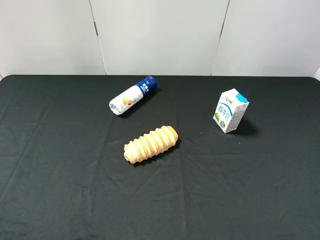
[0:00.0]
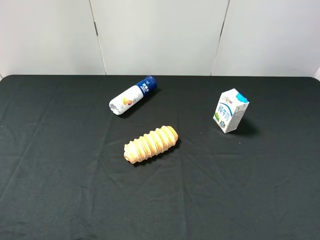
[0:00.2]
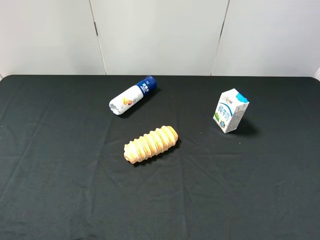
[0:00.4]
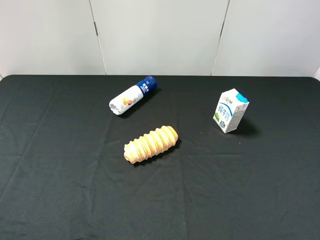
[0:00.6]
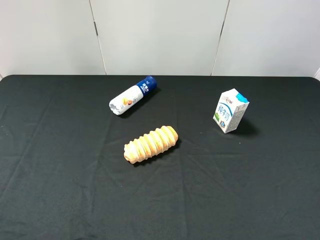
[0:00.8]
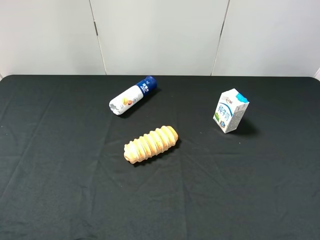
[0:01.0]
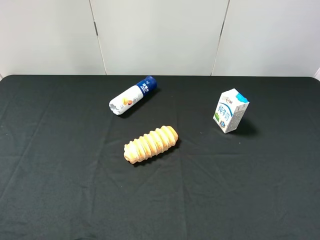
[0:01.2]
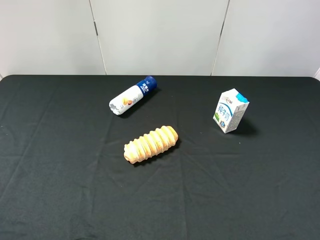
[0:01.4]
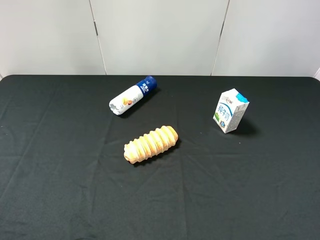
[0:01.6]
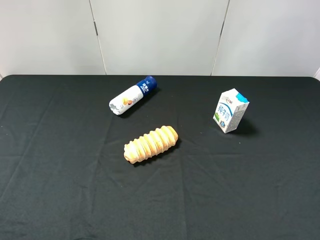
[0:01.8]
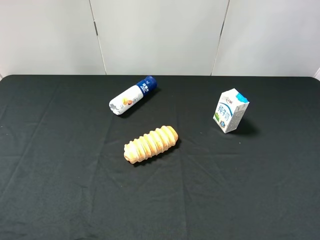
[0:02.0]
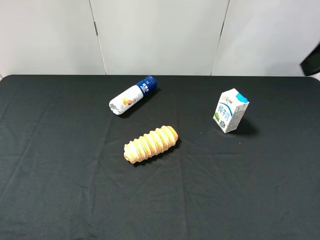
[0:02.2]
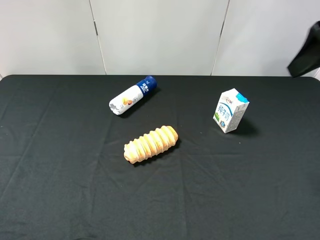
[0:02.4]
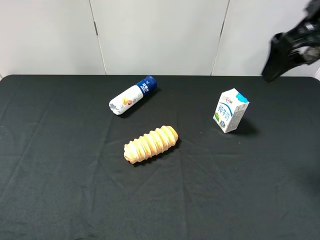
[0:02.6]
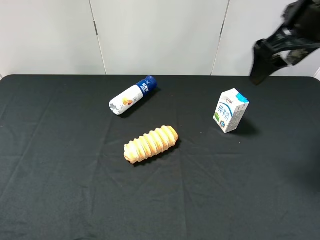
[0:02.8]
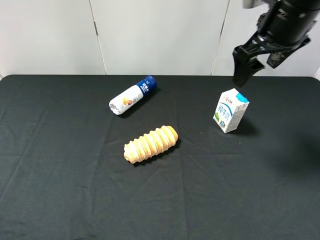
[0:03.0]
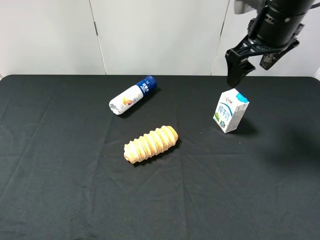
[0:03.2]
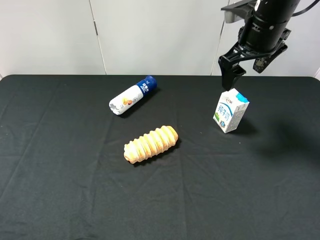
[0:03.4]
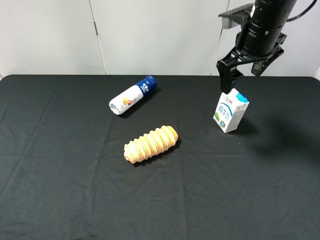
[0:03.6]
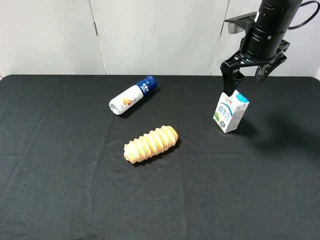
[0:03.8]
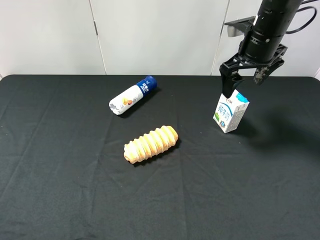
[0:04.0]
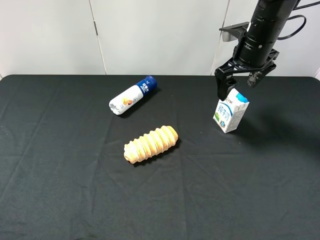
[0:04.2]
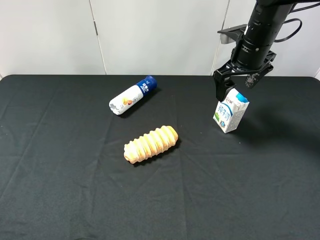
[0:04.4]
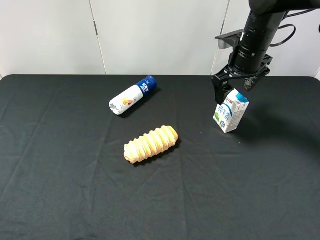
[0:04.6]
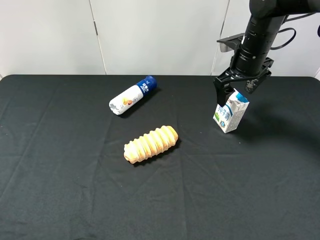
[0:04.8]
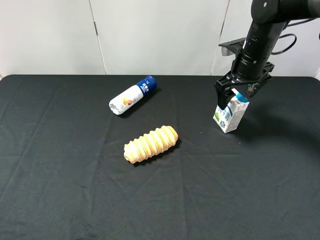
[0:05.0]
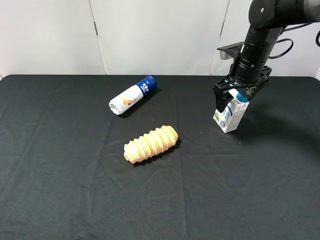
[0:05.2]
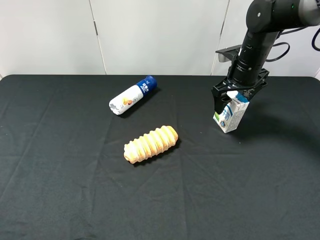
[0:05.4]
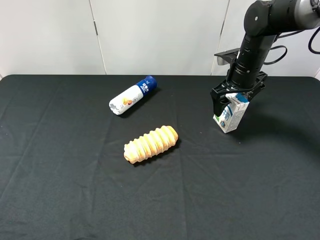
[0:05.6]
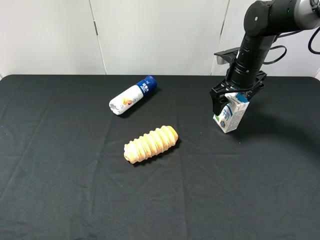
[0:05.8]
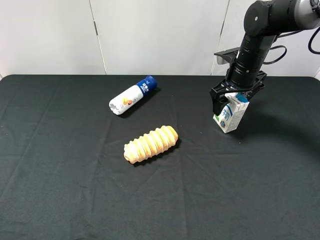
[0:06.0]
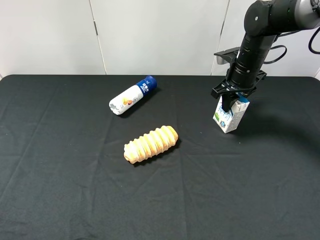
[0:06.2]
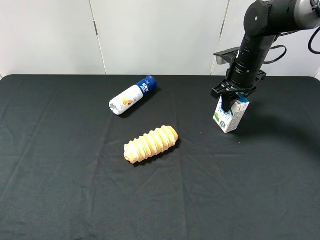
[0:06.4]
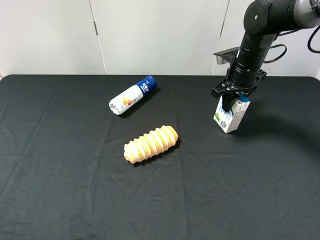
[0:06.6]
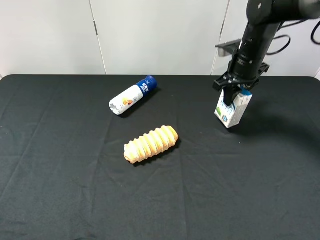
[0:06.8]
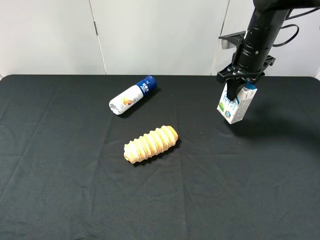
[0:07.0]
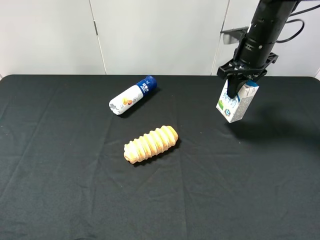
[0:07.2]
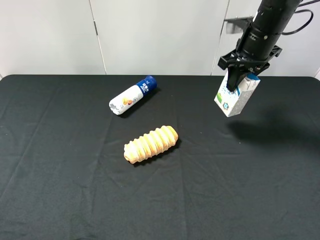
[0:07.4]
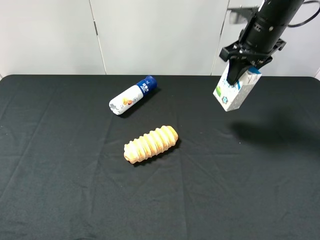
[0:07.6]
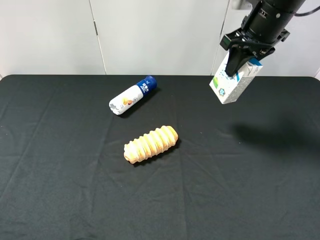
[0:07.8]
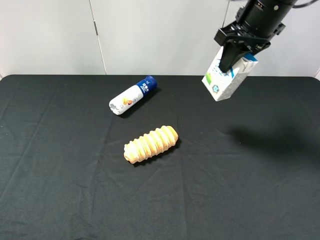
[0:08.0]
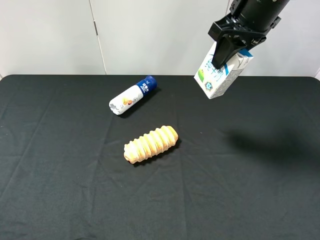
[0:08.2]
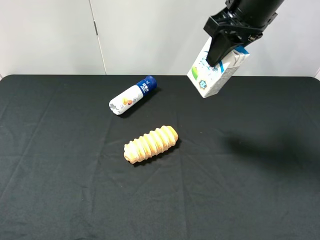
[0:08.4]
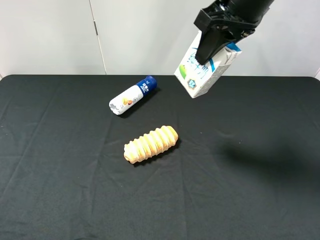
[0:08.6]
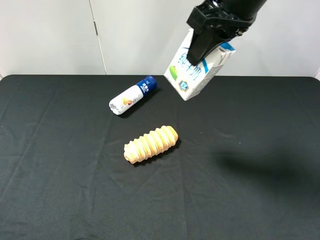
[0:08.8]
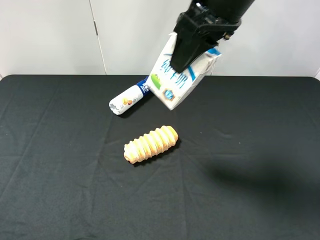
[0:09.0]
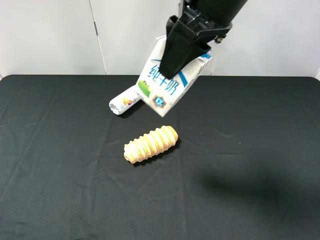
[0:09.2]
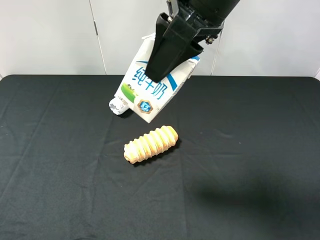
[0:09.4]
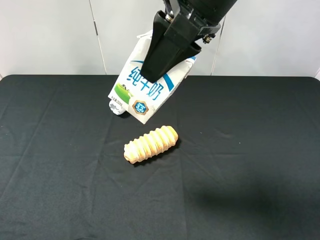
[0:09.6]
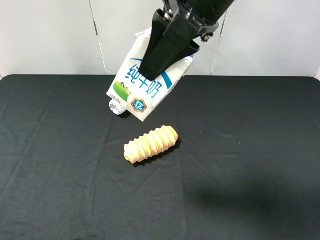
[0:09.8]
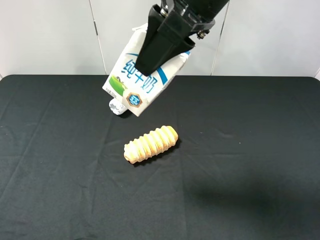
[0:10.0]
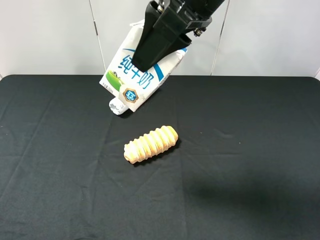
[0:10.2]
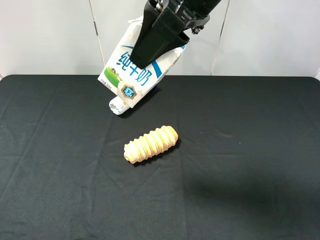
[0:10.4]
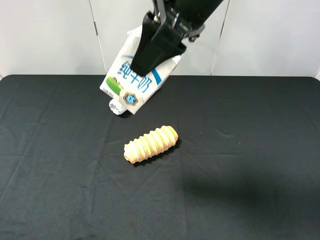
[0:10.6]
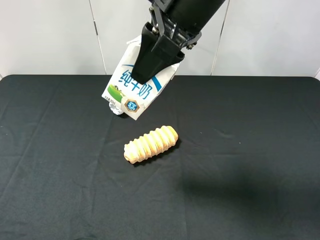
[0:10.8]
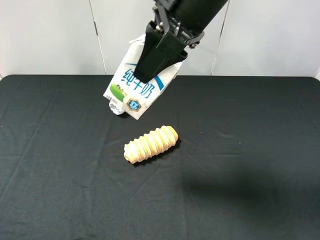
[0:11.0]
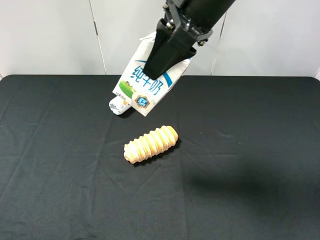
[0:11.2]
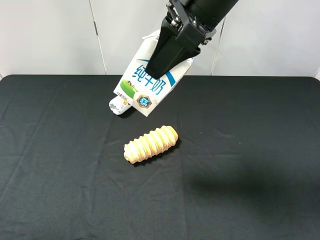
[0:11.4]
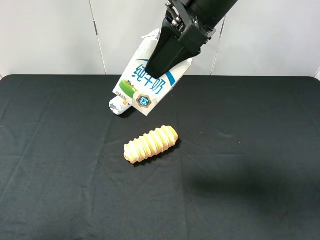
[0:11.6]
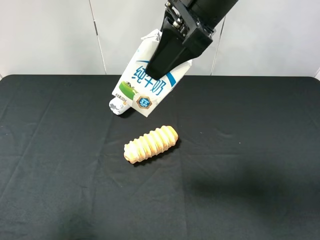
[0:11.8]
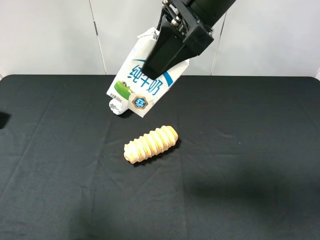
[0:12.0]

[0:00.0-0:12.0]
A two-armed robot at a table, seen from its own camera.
Task of the whole recording: use the right gripper to pick up the item and transfer it from the right gripper to the left gripper.
Step, 0:00.0 to 0:06.2: Use the right gripper to grab the milk on the right side of the table.
0:01.6 to 0:03.0: The right gripper is displaced forward by about 25 cm.
0:03.0 to 0:04.4: The right gripper shifts some 10 cm downward and forward.
0:04.4 to 0:06.0: The right gripper heads downward, covering roughly 5 cm.
0:06.0 to 0:07.6: The right gripper moves upward, approximately 10 cm, and closes its fingers.
0:07.6 to 0:09.0: The right gripper travels backward, to the left and upward by some 20 cm.
0:09.0 to 0:10.4: There are only small adjustments of the grippers.
0:10.4 to 0:12.0: The left gripper is displaced forward and upward by about 15 cm.

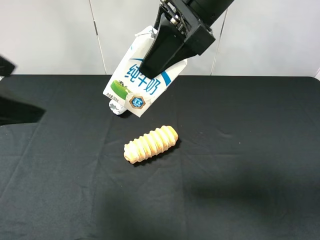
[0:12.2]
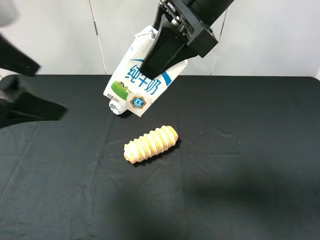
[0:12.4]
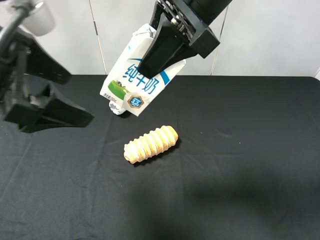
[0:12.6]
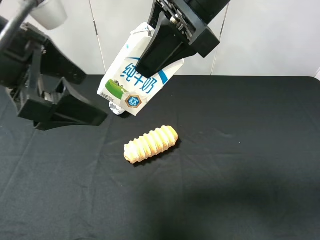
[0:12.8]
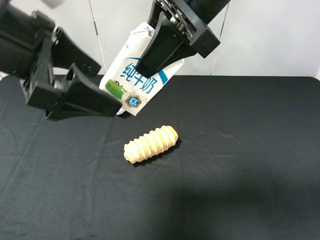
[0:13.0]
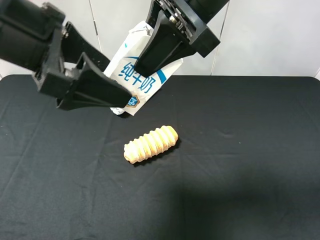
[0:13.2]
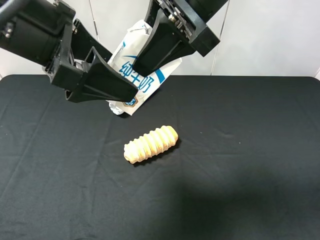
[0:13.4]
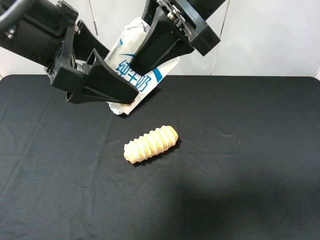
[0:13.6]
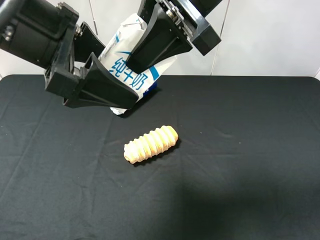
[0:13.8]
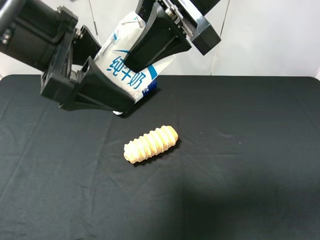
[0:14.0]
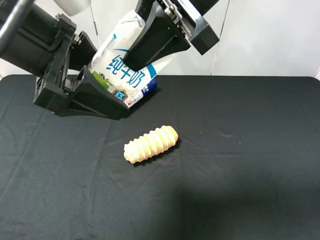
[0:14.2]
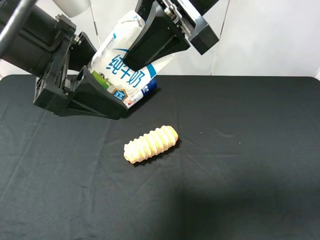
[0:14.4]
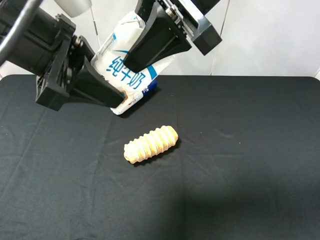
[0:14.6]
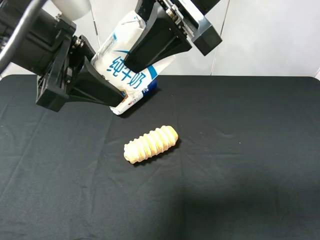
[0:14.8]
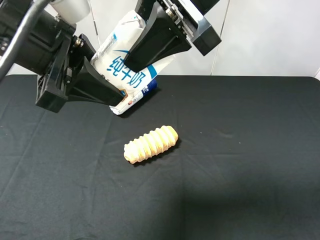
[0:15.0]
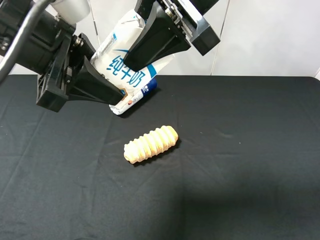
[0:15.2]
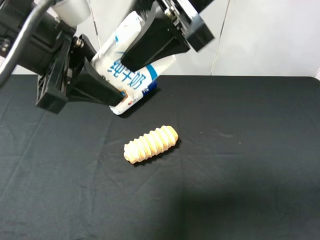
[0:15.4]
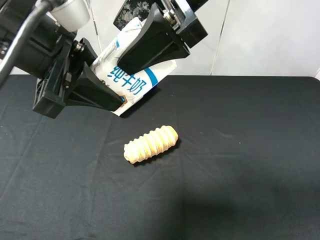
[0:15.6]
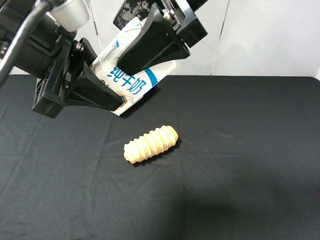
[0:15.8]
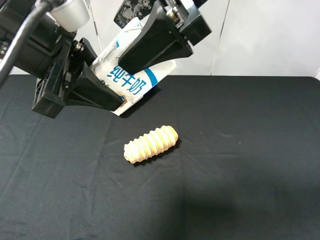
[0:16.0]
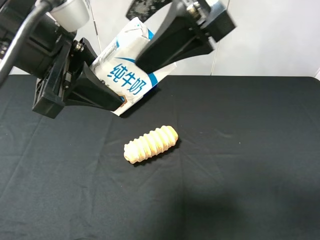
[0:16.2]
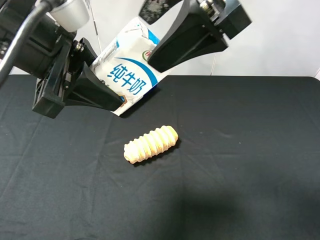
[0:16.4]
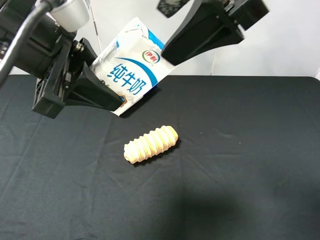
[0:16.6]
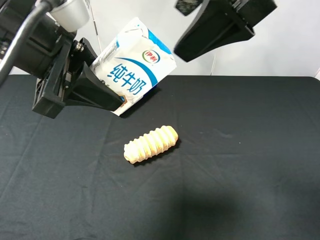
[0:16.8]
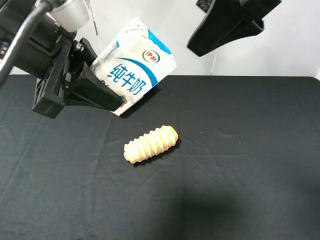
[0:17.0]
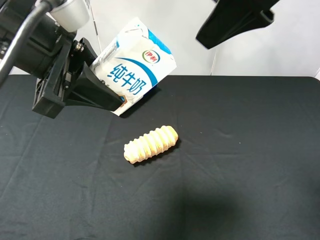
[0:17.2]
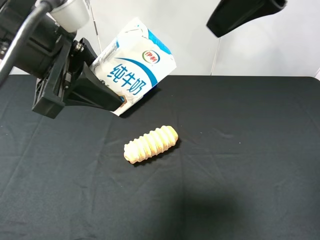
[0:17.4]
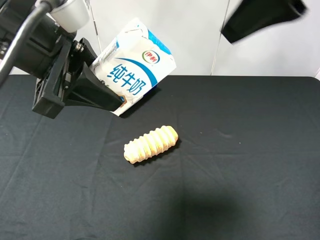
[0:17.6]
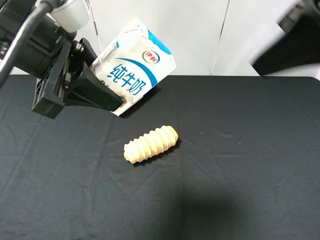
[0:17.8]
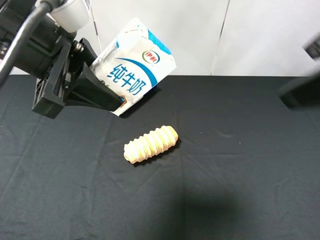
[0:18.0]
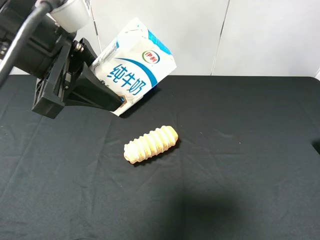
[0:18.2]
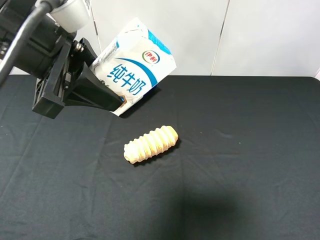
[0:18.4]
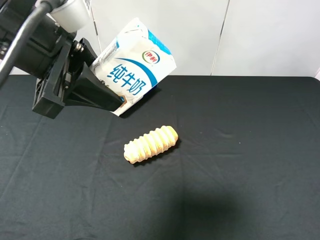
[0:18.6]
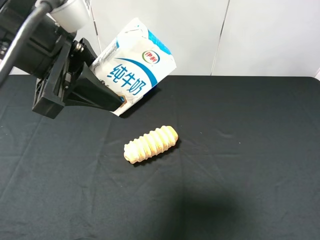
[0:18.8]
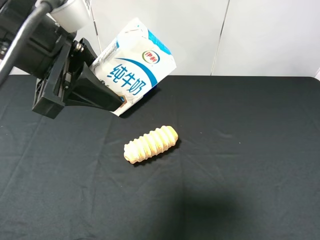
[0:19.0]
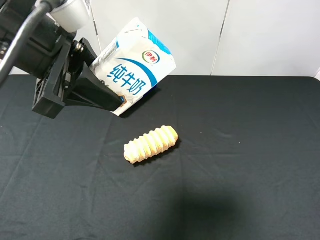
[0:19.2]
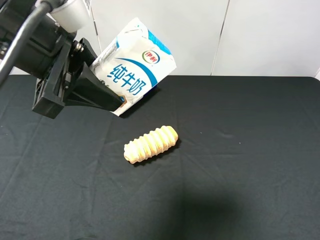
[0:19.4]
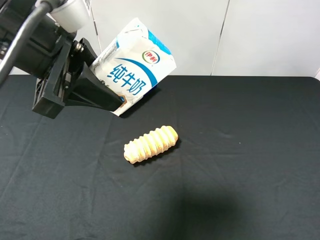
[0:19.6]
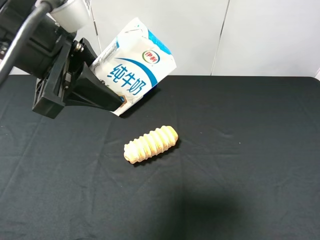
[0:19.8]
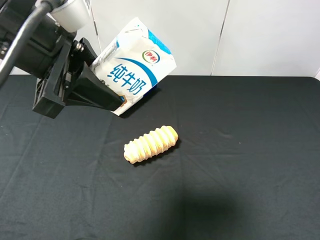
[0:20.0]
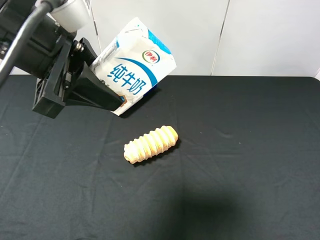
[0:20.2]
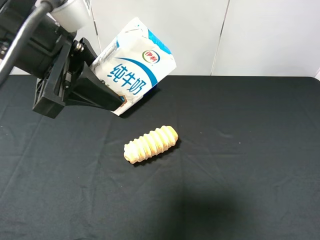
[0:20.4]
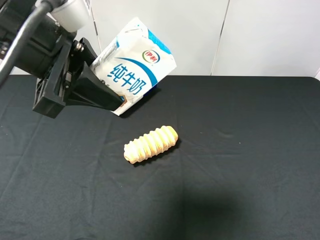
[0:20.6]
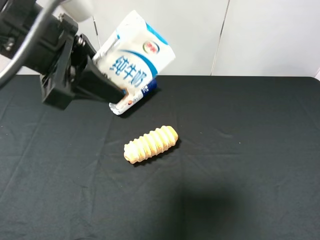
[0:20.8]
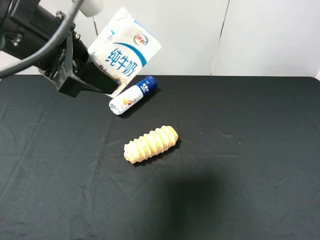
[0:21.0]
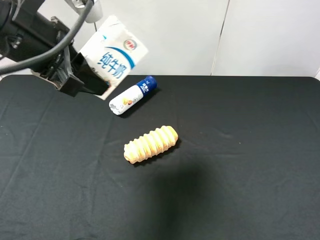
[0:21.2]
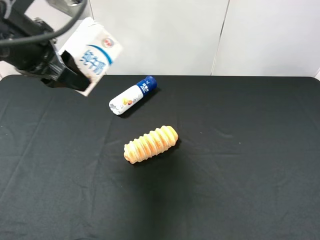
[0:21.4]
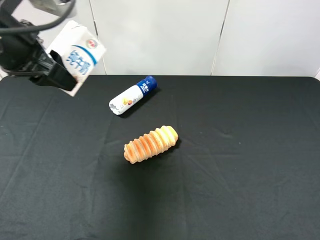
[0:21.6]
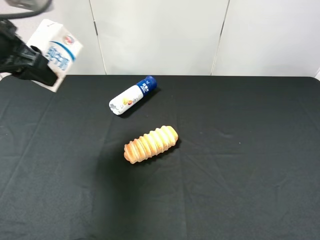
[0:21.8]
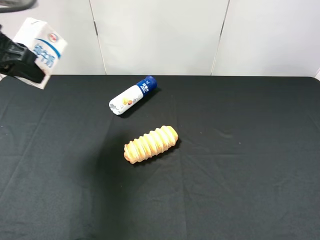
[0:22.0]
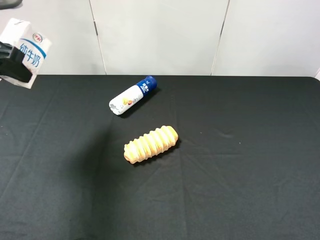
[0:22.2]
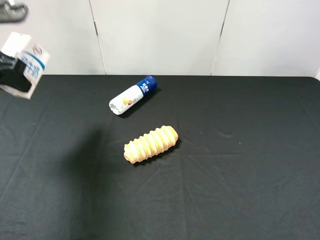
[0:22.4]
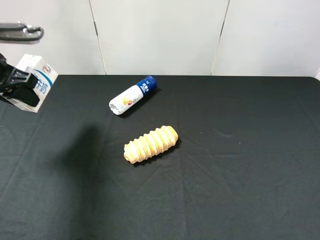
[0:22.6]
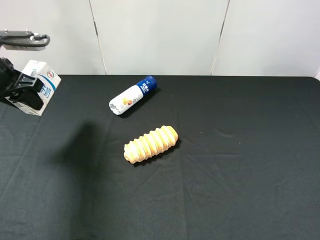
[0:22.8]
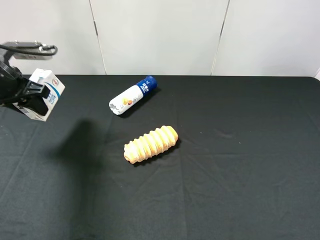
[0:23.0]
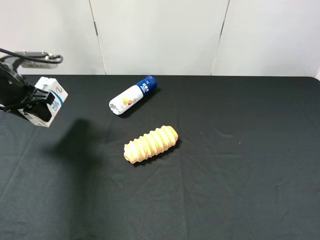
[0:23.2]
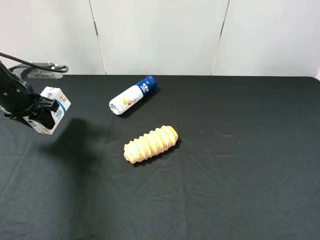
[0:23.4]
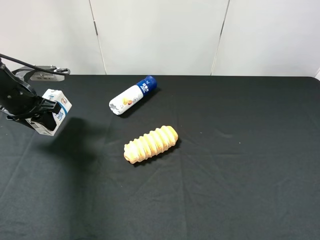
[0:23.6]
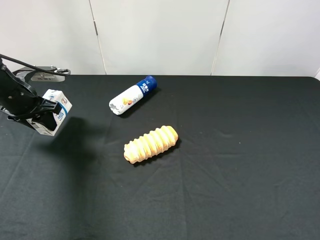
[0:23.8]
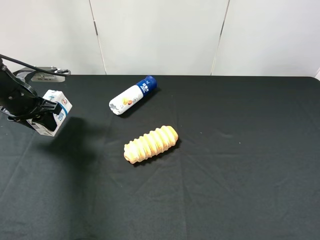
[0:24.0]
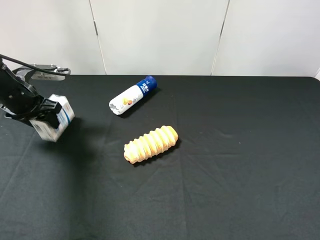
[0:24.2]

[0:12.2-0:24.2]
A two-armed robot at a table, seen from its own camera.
Task of the whole recording: use the right gripper to pick up the item and transfer it from the right gripper to the left gripper.
Step, 0:12.2 to 0:15.8: Pass the milk to the left gripper.
0:12.2 to 0:13.8: The left gripper is displaced to the right and forward by some 10 cm.
0:13.8 to 0:15.2: The left gripper closes.
0:15.2 to 0:16.6: The right gripper ends up approximately 5 cm from where it was, and opens up.
0:16.6 to 0:18.2: The right gripper shifts roughly 20 cm to the right and backward.
0:21.2 to 0:22.6: The left gripper goes some 15 cm to the left, downward and forward.
0:22.6 to 0:24.2: The left gripper shifts roughly 10 cm downward, and opens up.
